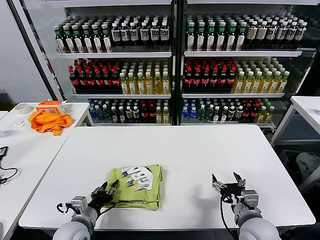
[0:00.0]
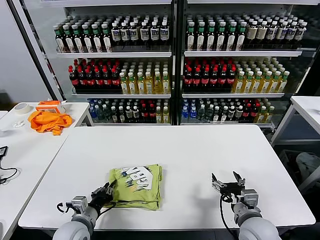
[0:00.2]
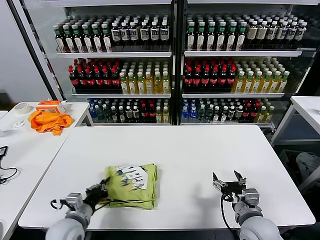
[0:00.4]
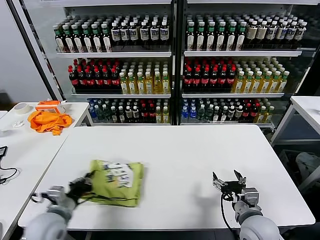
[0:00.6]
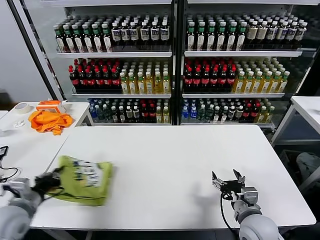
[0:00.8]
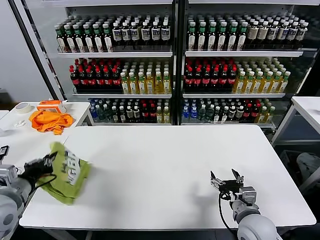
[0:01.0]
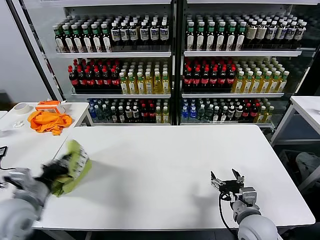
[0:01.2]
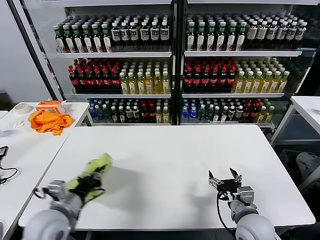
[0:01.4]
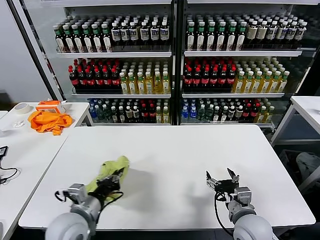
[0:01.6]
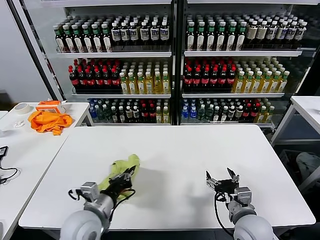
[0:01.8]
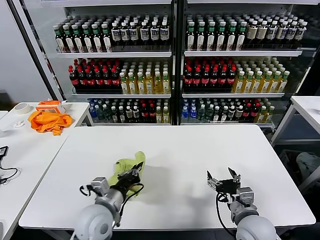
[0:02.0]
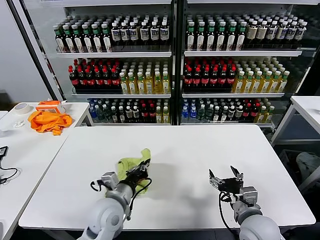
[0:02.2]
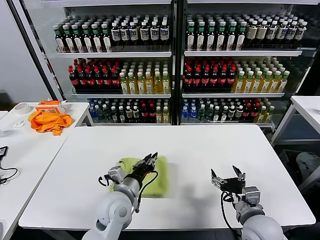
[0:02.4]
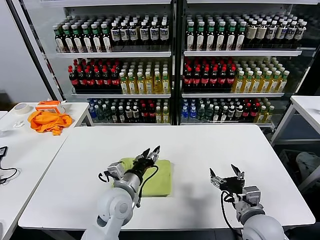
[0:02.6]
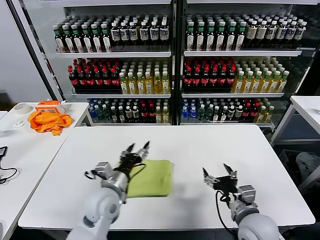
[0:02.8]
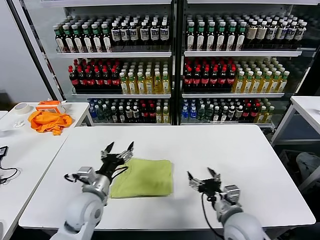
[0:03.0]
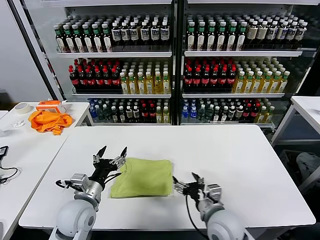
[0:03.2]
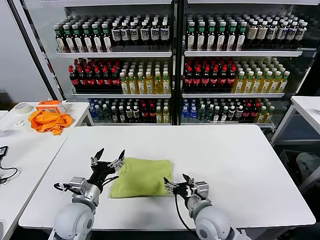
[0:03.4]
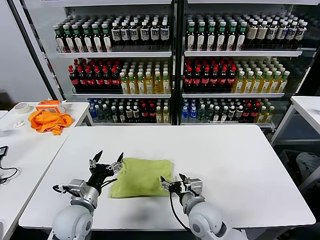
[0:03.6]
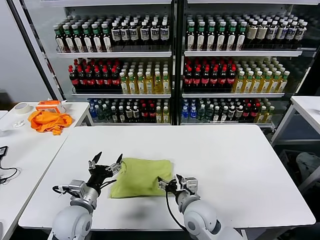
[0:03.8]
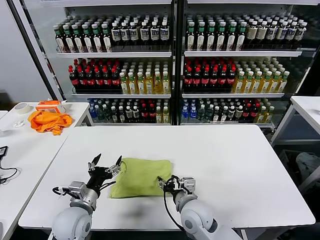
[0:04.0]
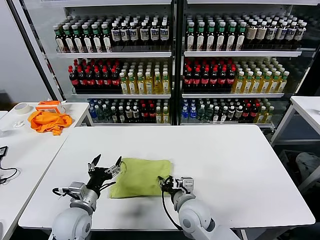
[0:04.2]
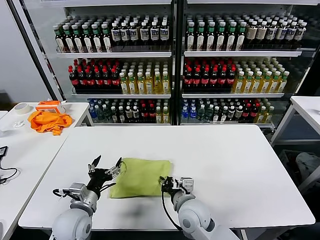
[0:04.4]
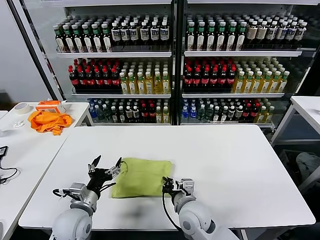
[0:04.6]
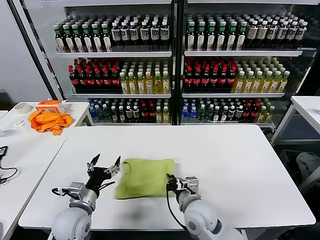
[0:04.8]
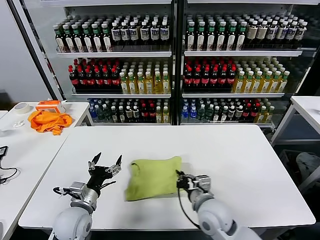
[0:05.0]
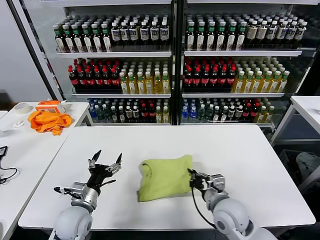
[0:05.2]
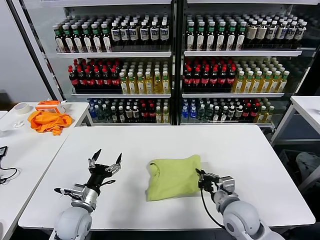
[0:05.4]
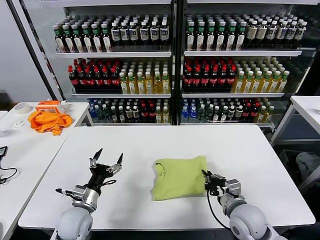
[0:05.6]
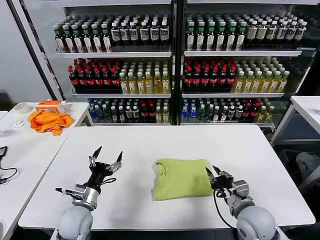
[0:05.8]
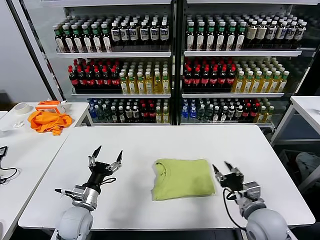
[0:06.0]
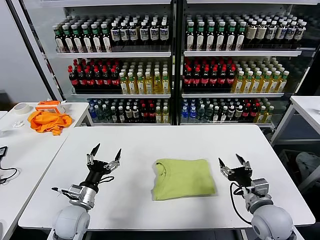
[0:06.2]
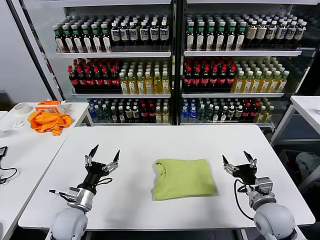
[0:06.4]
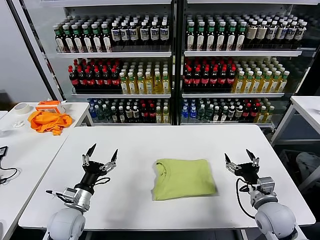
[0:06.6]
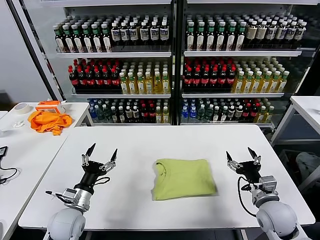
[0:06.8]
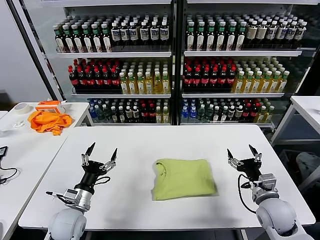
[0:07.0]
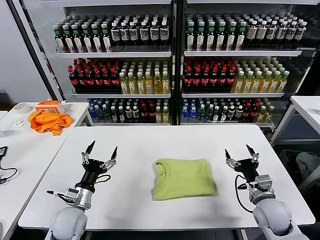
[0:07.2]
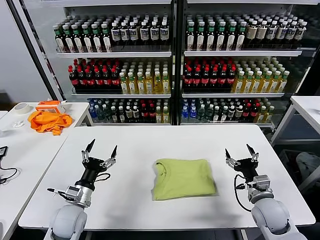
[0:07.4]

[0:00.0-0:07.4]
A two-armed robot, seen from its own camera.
Task of the whole recording: fold and organize the clothes.
Step, 0:00.0 to 0:02.4: Flip the folded clothes over with left gripper.
Step, 0:02.6 to 0:05.8: Drag the clothes to the center of the table.
0:00.0 to 0:01.4: The left gripper shifts roughly 10 cm upward, and closes up.
0:01.4 to 0:03.0: The left gripper travels to the right and forward by about 10 cm, and opens up.
0:03.0 to 0:04.4: The left gripper moves approximately 5 cm. The right gripper goes roughly 15 cm to the left and forward, and closes up.
0:04.4 to 0:06.0: The right gripper moves to the right, roughly 20 cm, and closes, then reopens.
0:06.0 to 0:07.4: The right gripper goes approximately 5 cm to the right, and opens up.

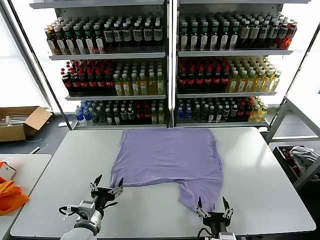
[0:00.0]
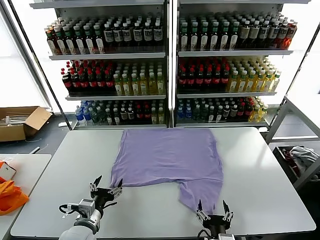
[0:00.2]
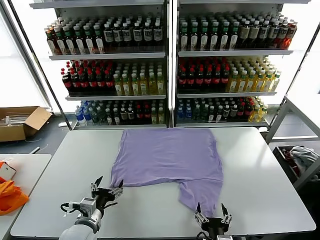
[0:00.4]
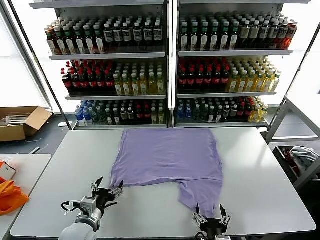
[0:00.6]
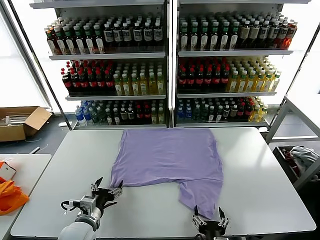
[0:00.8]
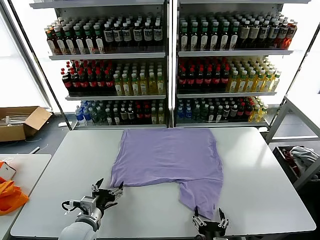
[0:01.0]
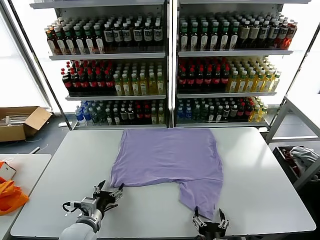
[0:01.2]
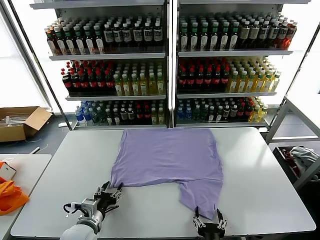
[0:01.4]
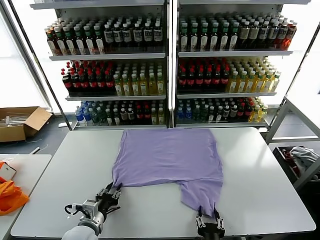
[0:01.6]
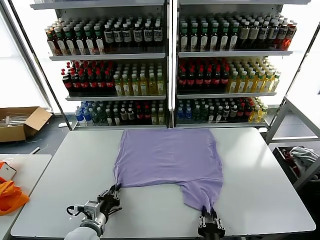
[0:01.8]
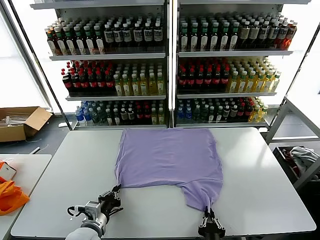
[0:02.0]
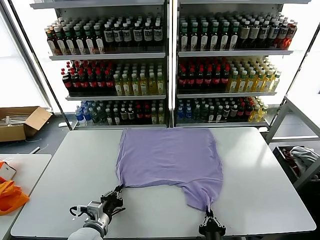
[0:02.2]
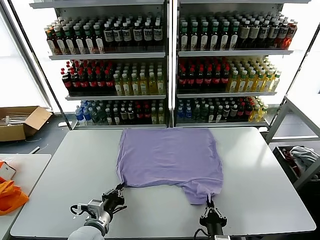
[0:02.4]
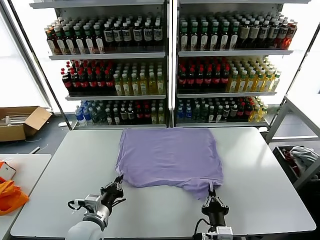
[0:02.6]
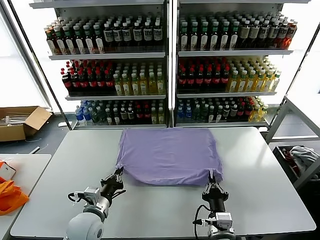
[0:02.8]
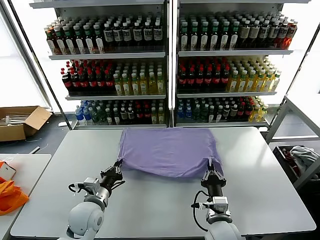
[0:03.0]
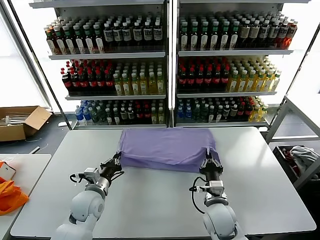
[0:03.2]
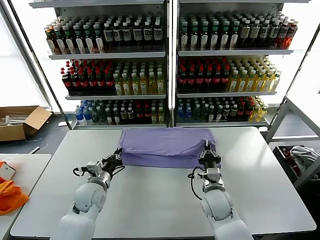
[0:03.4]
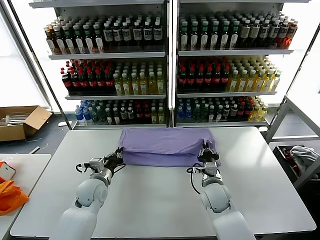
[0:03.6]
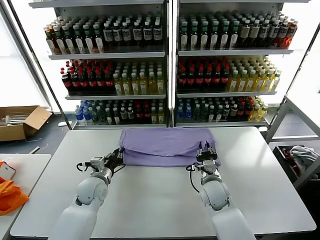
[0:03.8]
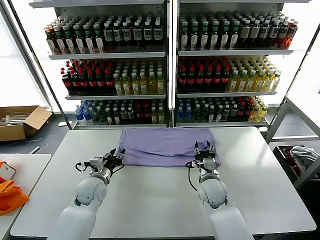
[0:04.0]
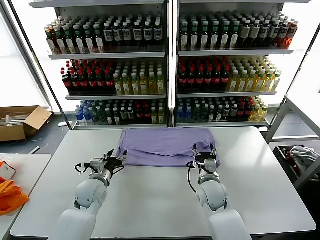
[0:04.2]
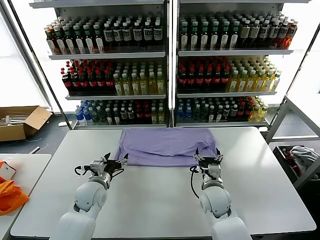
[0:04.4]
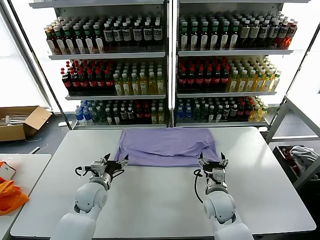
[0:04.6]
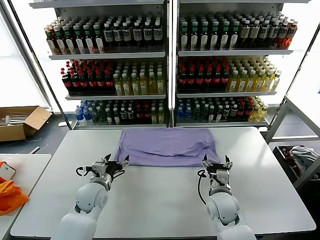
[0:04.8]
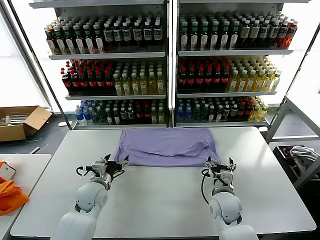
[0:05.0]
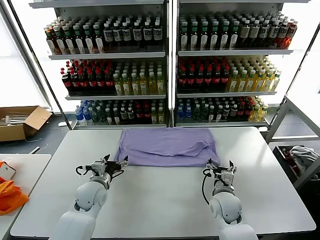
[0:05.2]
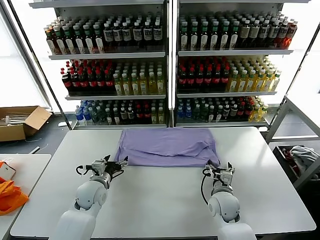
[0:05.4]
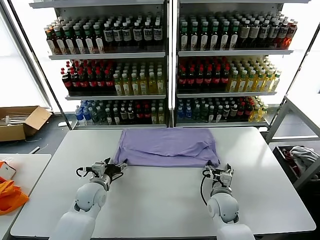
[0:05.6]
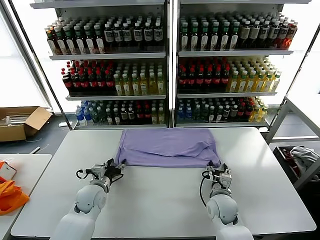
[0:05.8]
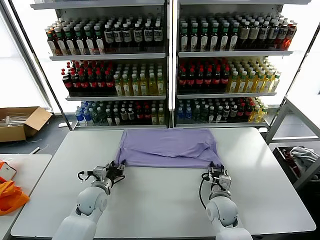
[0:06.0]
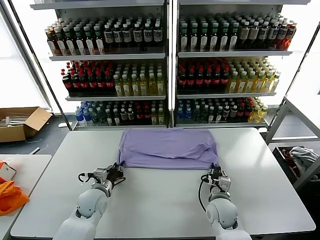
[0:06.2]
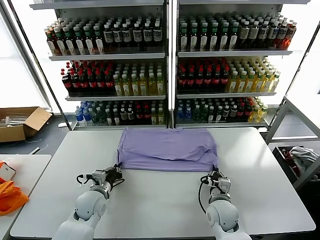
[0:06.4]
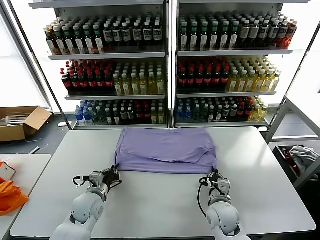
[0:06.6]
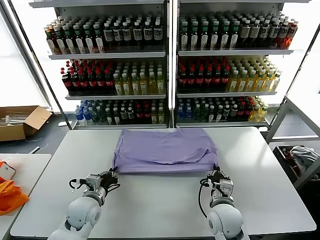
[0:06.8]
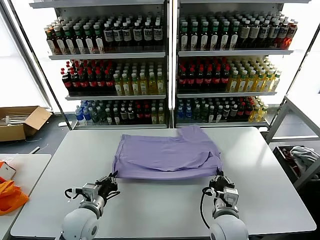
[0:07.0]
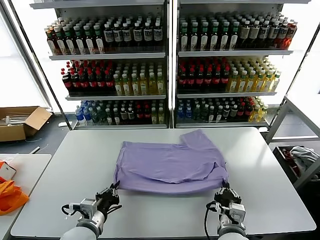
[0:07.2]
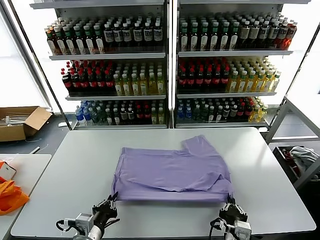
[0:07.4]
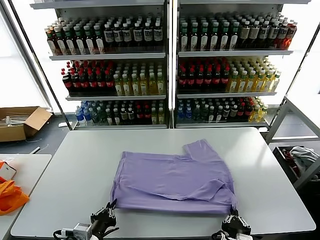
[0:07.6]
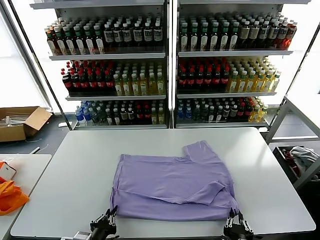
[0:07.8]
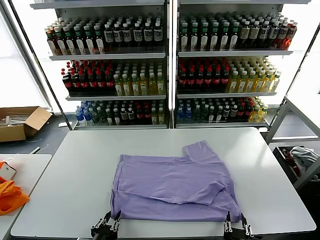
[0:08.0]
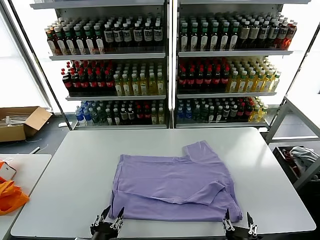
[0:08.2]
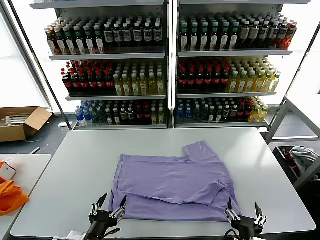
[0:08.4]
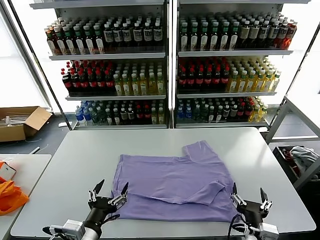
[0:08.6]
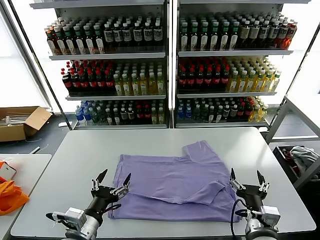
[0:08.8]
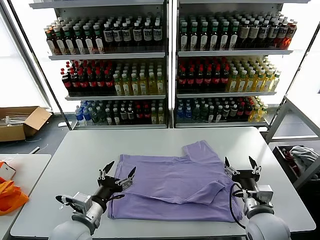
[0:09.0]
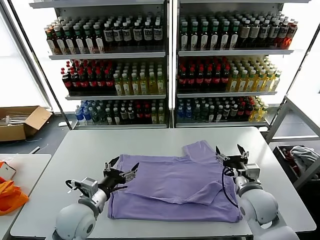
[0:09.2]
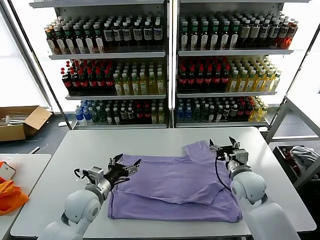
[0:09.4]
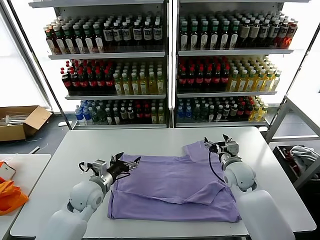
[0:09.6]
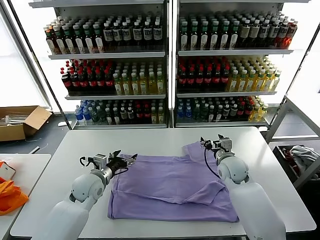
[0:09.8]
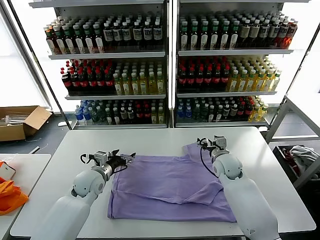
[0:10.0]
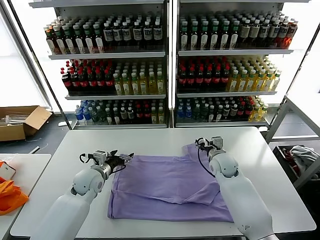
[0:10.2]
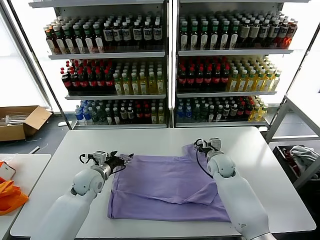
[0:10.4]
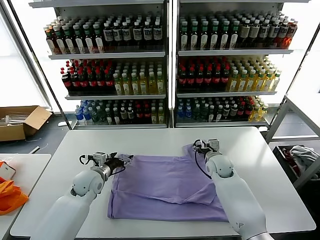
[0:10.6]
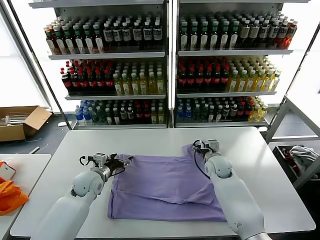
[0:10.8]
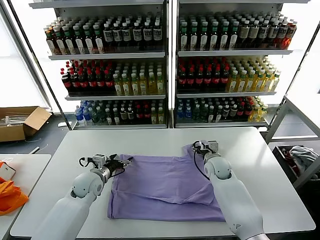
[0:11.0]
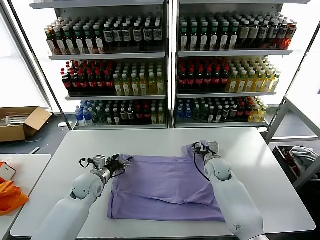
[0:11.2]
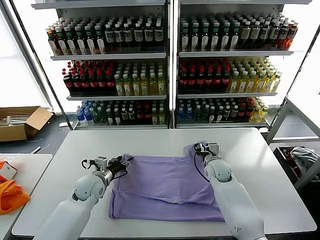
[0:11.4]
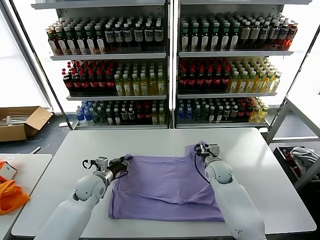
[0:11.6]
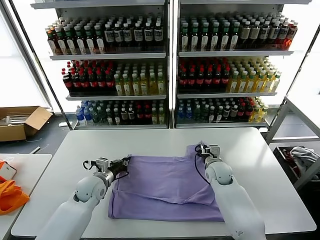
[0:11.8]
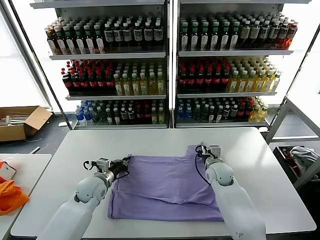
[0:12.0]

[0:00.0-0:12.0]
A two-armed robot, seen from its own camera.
Task of the whole recording: fold and organize the clothes.
Step, 0:00.0 to 0:02.4: use both grippers simultaneously to clamp the lower edge of the clothing fabric.
Step, 0:02.6 to 0:04.0: use both grippers to drag the lower edge of the fabric forward and fold it over the upper edge.
Step, 0:04.2 to 0:08.0: Drag the clothes downward with both gripper.
0:01.6 to 0:03.0: The left gripper is displaced forward by approximately 5 cm, and closes its fingers. The right gripper travels forward by roughly 15 cm, and closes its fingers.
0:03.0 to 0:04.4: Both grippers travel together forward, some 5 cm. The right gripper opens. The left gripper opens.
0:04.4 to 0:06.0: The right gripper ends up roughly 5 cm from where it was, and closes; the left gripper closes.
0:06.0 to 0:07.6: Both grippers move backward, about 20 cm. The left gripper closes.
0:07.6 to 0:09.0: The left gripper is displaced forward and upward by roughly 10 cm, and opens, while the right gripper is displaced forward and to the right by roughly 20 cm, and opens its fingers.
0:09.0 to 0:10.4: Both grippers travel together forward, roughly 20 cm.
0:10.4 to 0:12.0: The left gripper closes its fingers, while the right gripper closes up.

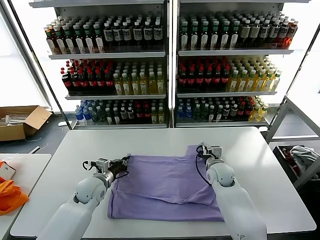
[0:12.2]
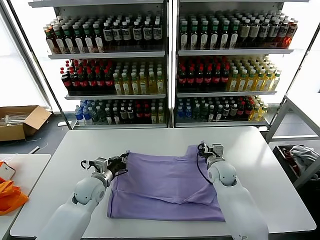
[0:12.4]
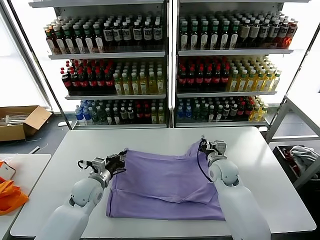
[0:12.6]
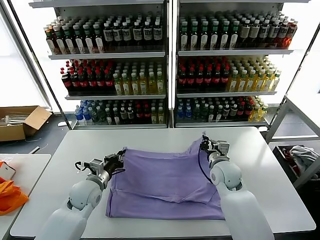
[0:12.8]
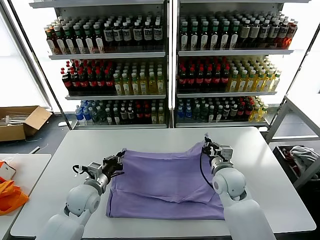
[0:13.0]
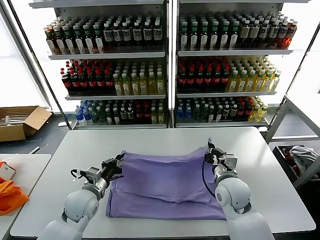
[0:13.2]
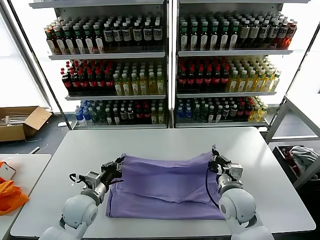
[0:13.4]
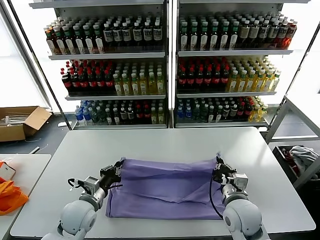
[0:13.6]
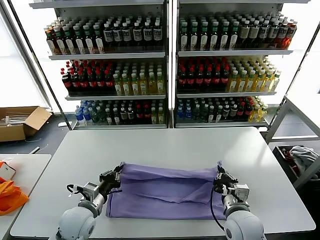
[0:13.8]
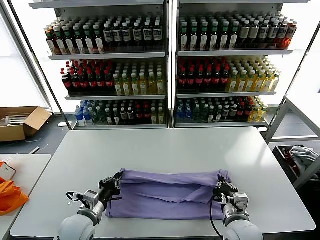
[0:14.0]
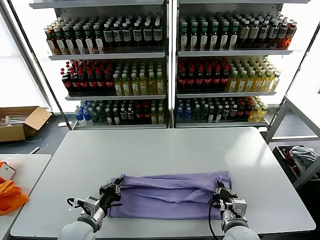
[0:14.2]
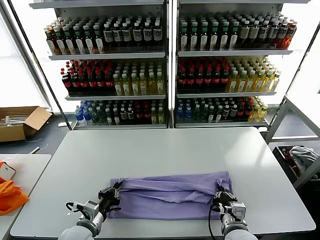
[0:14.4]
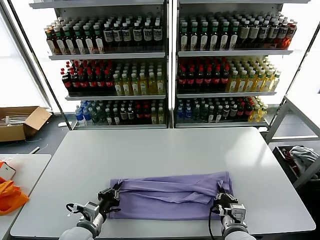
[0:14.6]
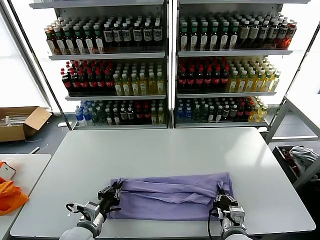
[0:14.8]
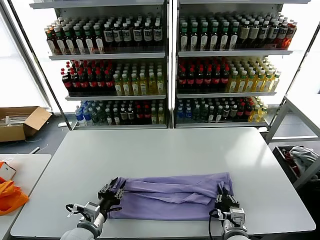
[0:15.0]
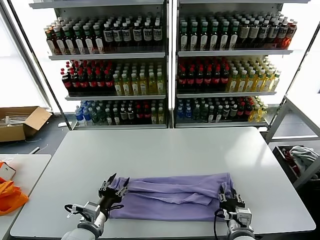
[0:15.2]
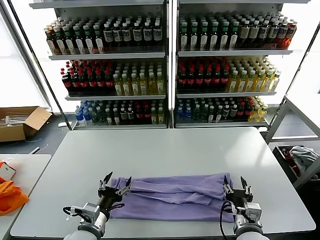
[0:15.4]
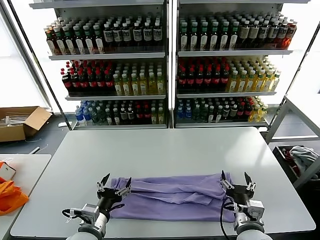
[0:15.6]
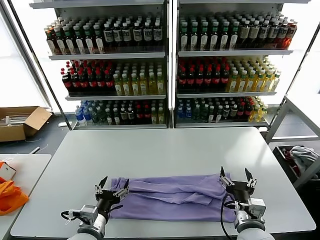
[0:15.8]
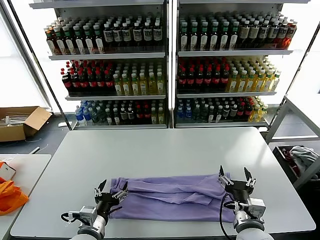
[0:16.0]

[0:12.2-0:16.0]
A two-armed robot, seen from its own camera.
Task of the whole recording: fold and organize the clothes.
Step, 0:12.4 to 0:15.2: use both grippers to drag the upper edge of the fabric backward and fold it over the lower edge.
0:12.2 to 0:13.4: The right gripper goes some 15 cm backward; the left gripper is displaced backward by approximately 10 cm.
0:13.4 to 0:14.8: The right gripper heads backward and downward, covering about 10 cm. Meanwhile the left gripper travels backward by approximately 10 cm.
0:14.8 to 0:16.0: The left gripper opens up. The right gripper travels upward by roughly 5 cm, and opens.
